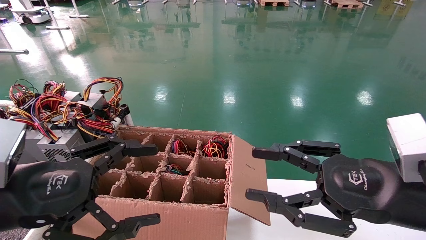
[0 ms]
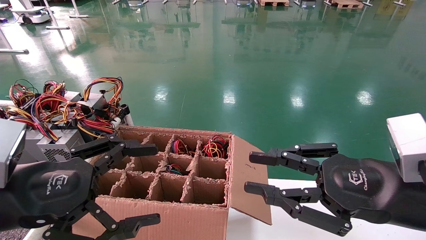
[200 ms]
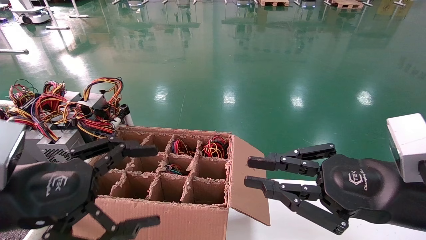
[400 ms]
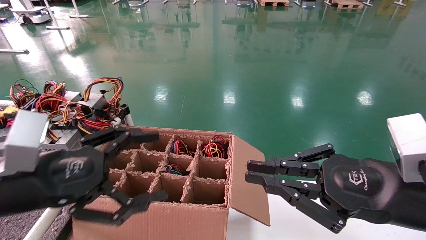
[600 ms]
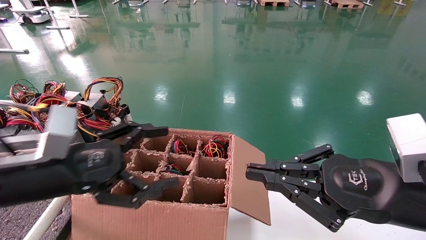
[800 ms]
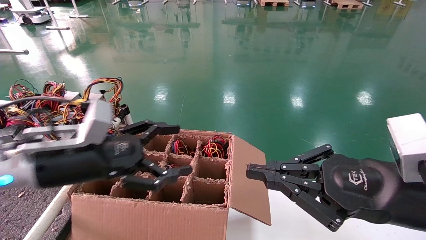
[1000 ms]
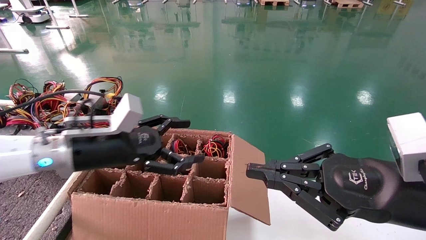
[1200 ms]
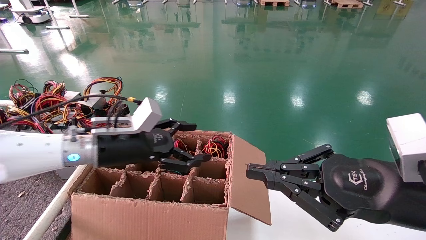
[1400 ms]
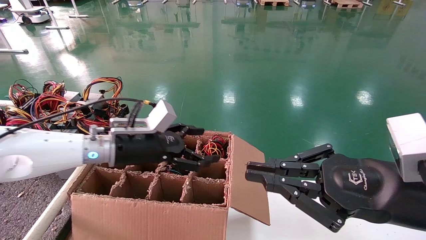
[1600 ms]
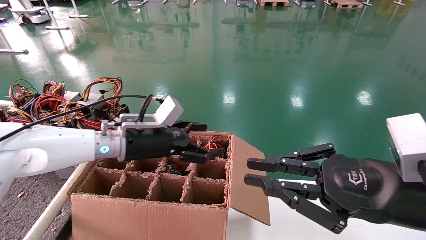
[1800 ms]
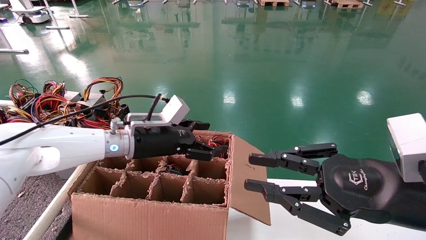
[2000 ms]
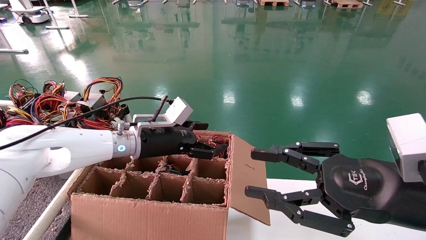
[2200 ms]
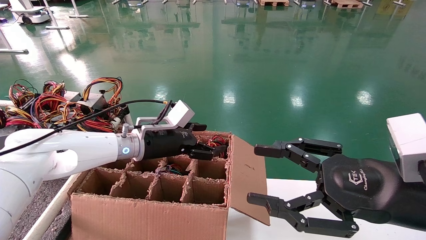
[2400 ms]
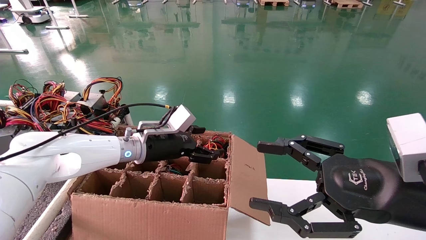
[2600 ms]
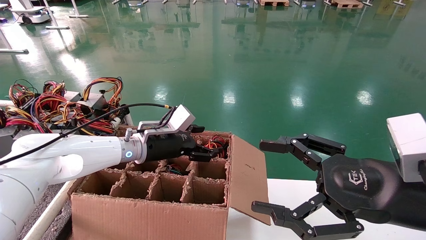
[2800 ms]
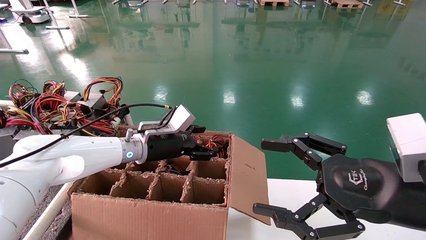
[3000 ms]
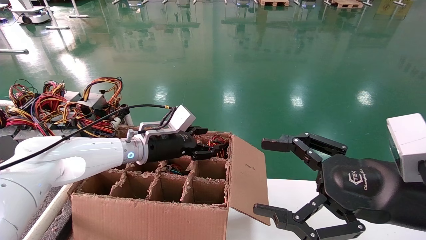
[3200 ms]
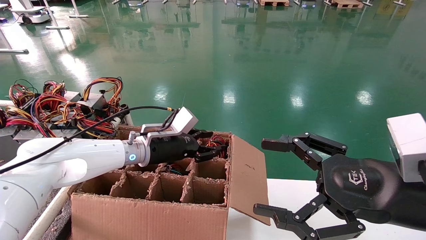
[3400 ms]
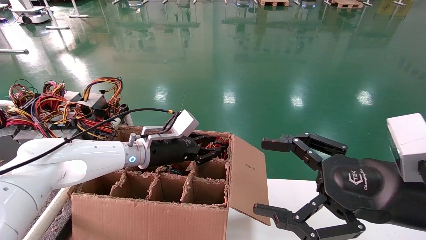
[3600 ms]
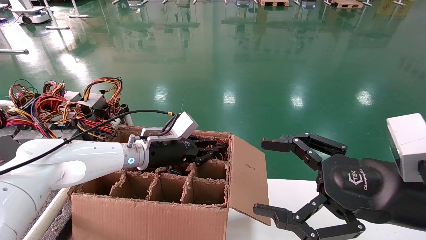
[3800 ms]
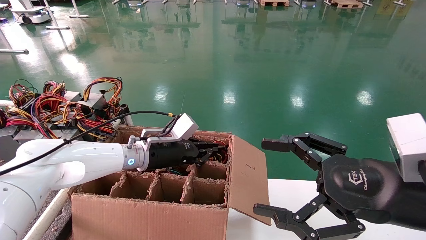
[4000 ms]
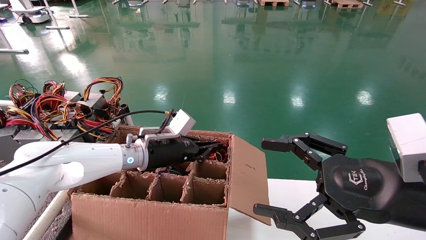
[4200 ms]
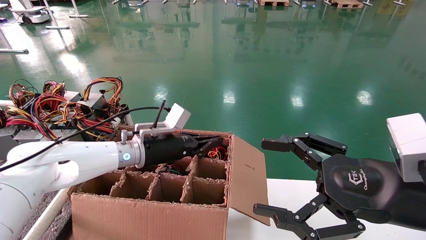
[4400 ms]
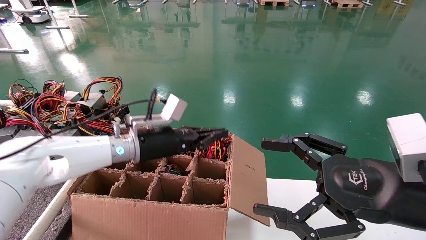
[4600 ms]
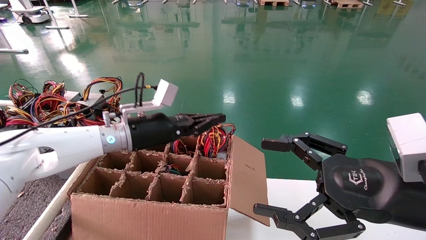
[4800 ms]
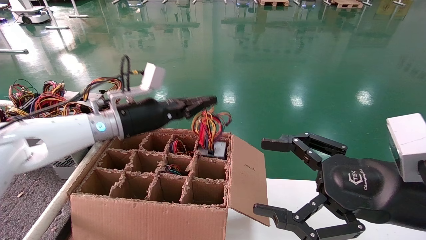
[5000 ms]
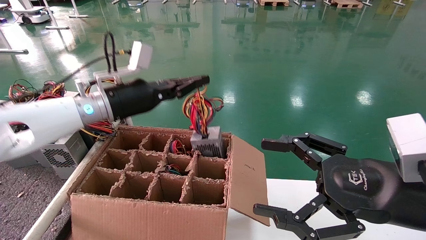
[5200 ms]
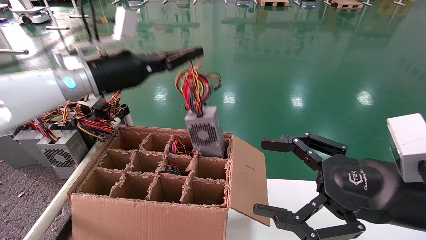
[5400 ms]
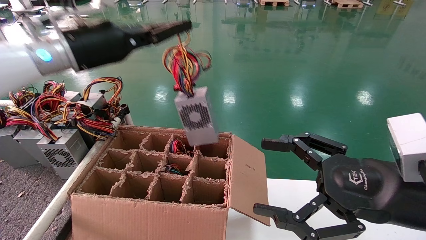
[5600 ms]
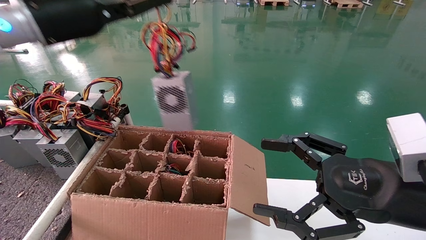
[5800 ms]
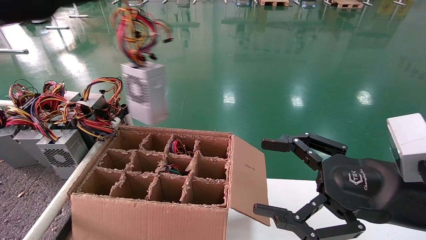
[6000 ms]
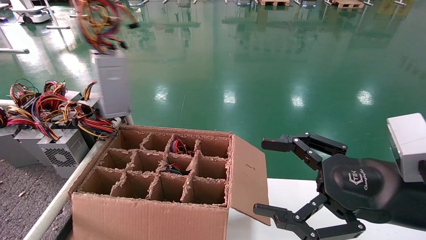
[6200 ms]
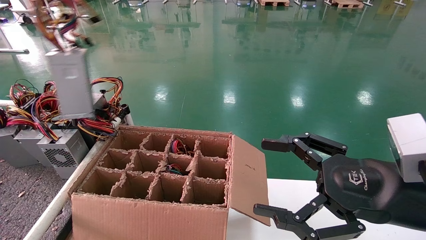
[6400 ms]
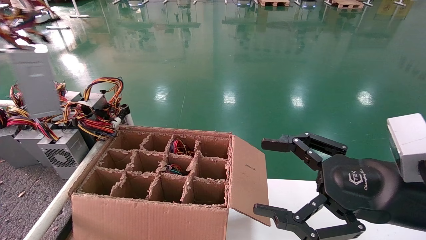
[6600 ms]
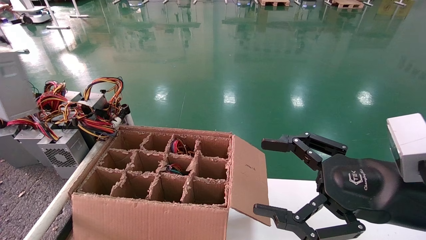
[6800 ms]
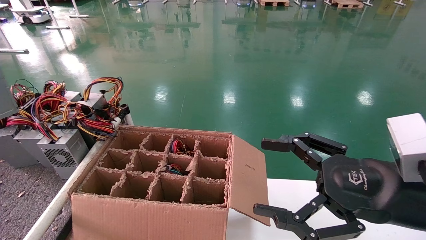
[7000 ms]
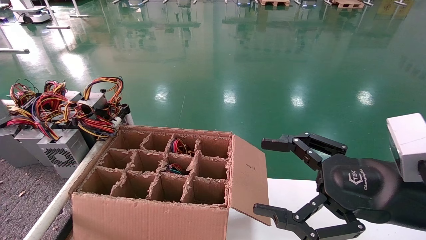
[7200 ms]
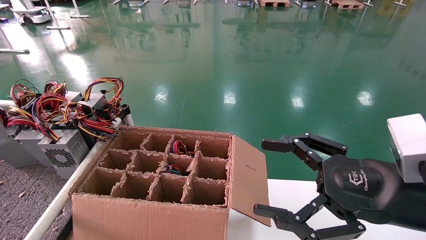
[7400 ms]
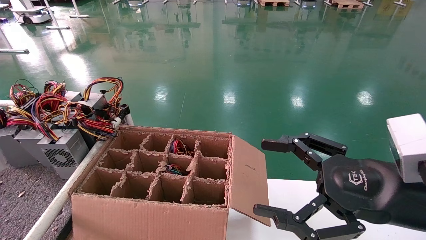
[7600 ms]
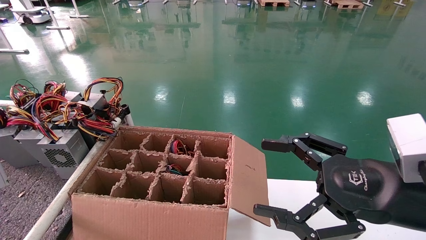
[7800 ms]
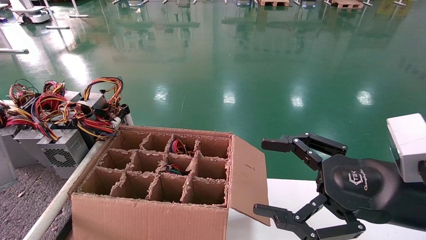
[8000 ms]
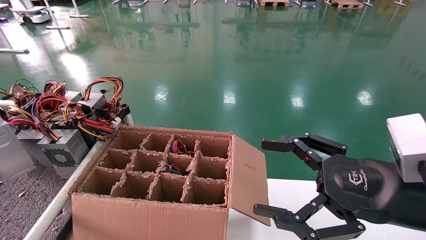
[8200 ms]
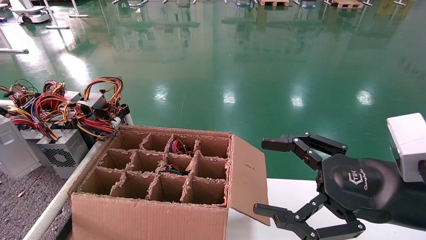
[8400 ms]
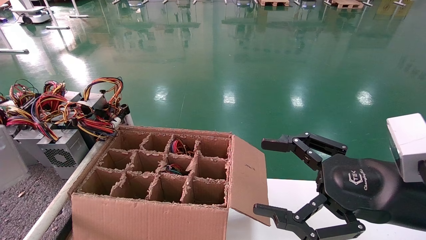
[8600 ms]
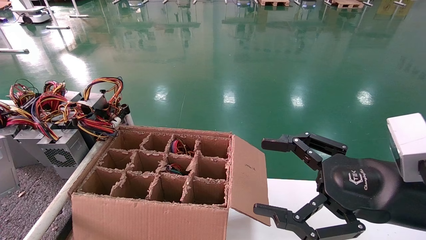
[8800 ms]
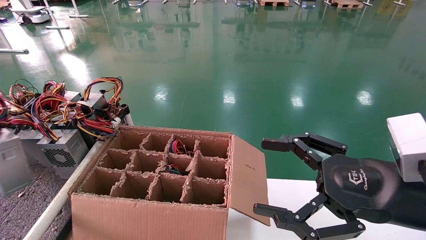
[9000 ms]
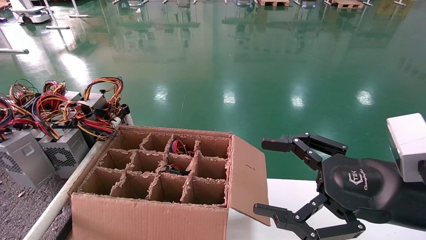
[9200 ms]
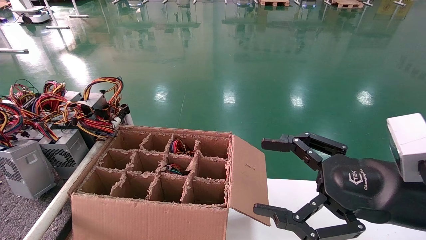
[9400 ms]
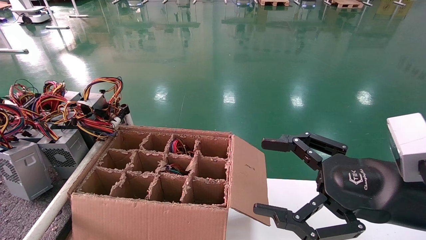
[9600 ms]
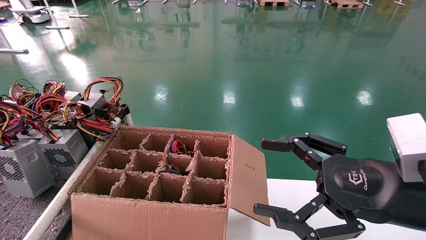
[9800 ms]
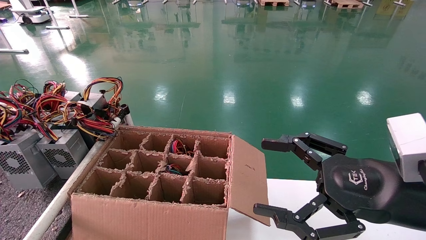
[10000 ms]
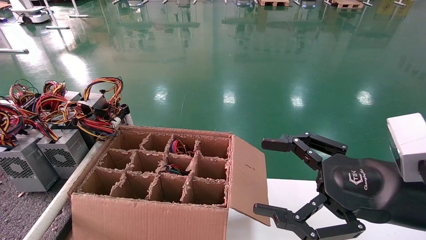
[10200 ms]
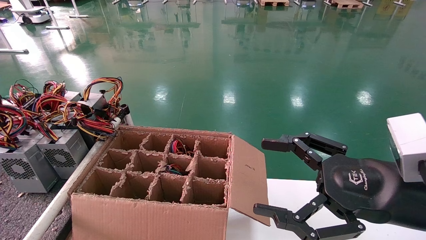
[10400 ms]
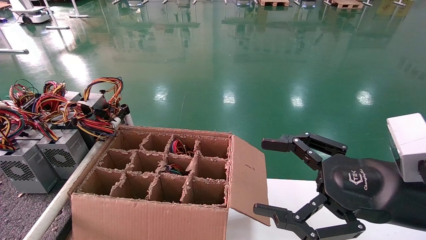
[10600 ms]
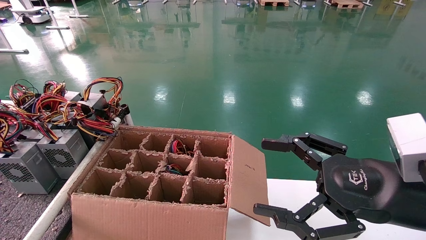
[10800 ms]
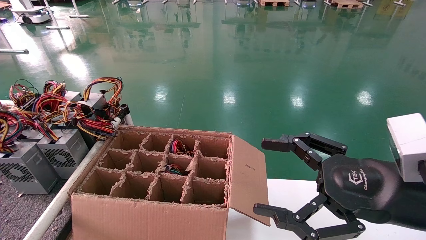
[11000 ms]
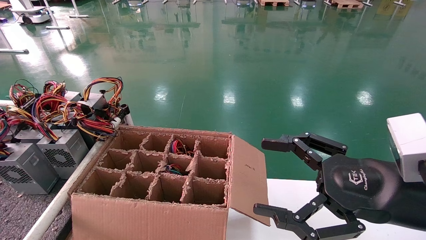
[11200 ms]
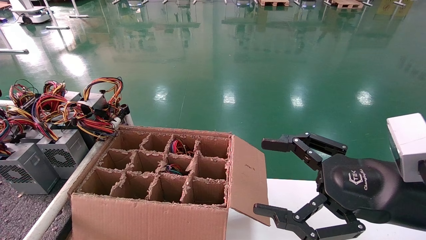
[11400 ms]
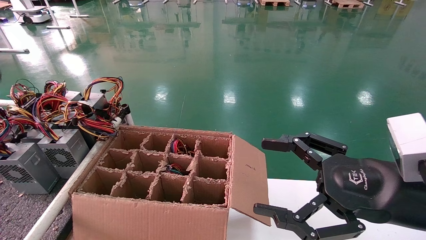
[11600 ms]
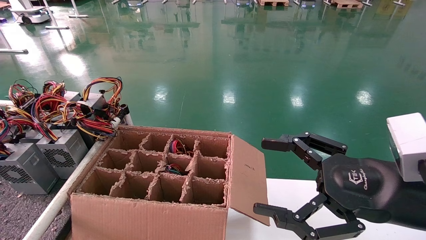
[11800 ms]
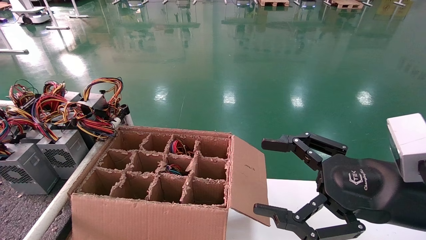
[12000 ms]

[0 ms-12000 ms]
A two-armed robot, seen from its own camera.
Step, 800 ms to 4400 ms: Grab and lift the power supply from the large box.
Step, 4600 ms to 11800 ms: Place the power supply on the operating table.
0 ms to 1600 ms: The left gripper is displaced forward and to the right by roughly 20 cm; the right gripper closes.
1600 ms to 3000 ms: The right gripper opens its fingers, while the left gripper shifts approximately 5 cm forward.
3000 ms to 4400 ms: The left gripper closes.
4400 ms to 6000 ms: The left gripper heads upward and to the left, covering some 35 cm.
6000 ms to 7600 ms: The left gripper goes approximately 30 cm to the left and backward.
7600 ms to 9000 ms: The left gripper heads downward, covering some 5 cm.
9000 ms to 10400 ms: The left gripper moves approximately 5 cm.
10400 ms to 12000 ms: The left gripper heads upward and to the right, covering approximately 10 cm, and opens its fingers.

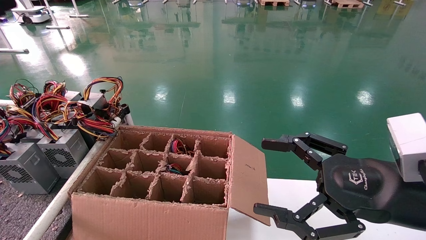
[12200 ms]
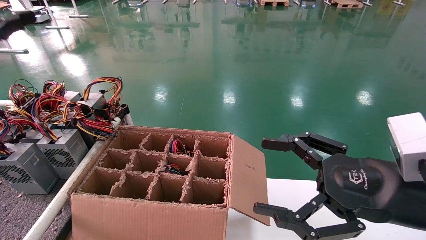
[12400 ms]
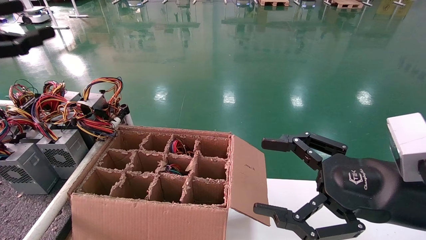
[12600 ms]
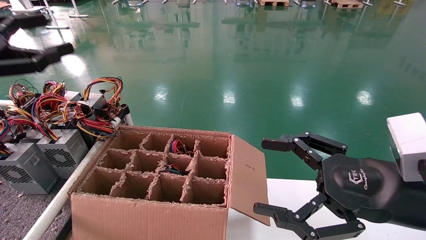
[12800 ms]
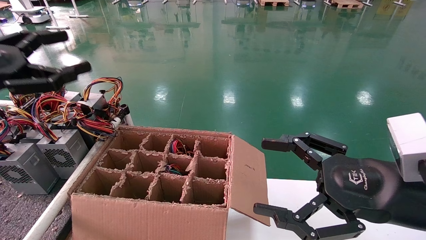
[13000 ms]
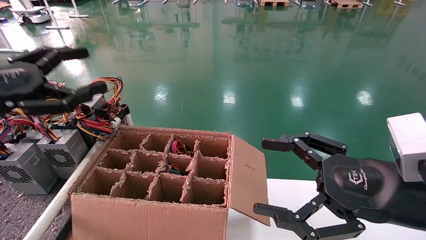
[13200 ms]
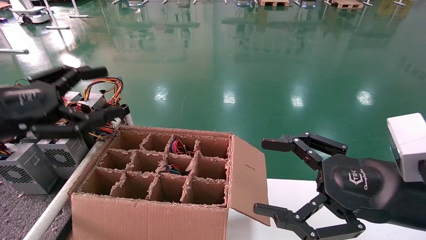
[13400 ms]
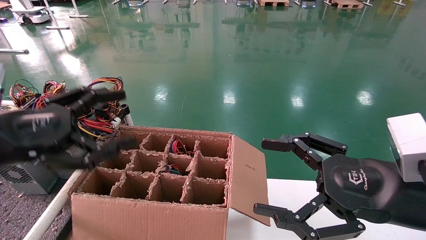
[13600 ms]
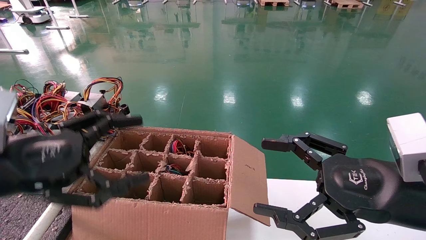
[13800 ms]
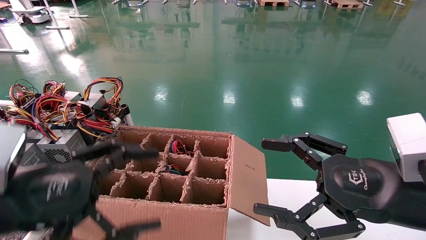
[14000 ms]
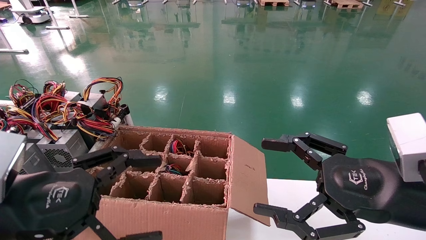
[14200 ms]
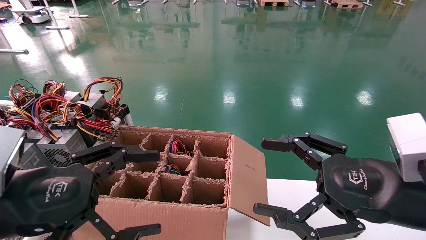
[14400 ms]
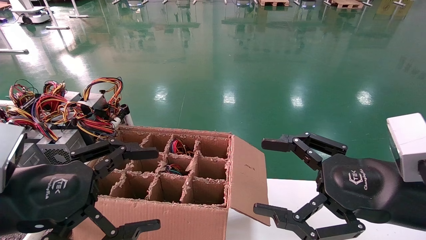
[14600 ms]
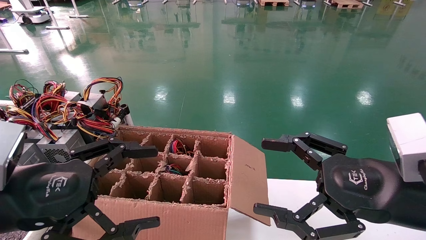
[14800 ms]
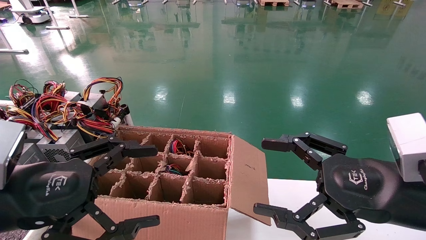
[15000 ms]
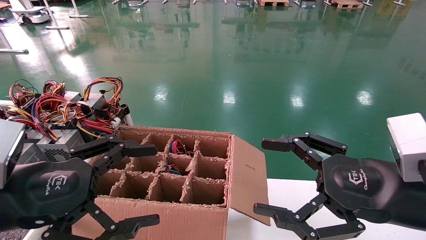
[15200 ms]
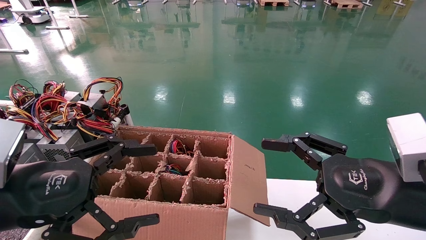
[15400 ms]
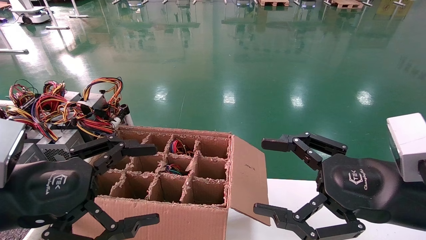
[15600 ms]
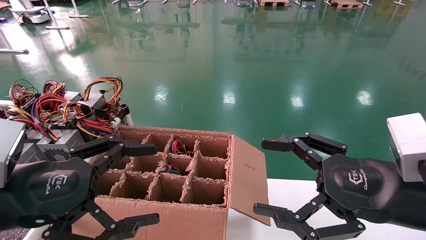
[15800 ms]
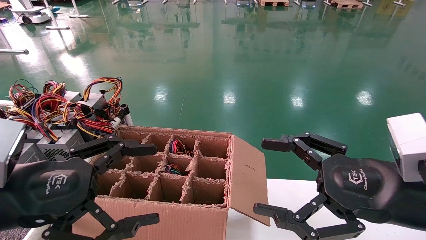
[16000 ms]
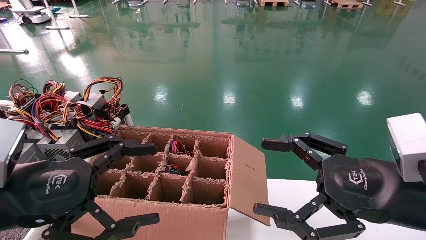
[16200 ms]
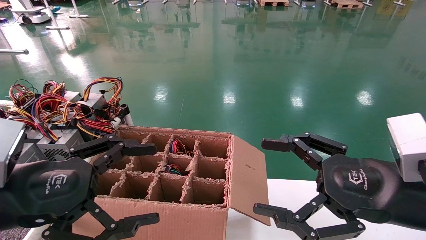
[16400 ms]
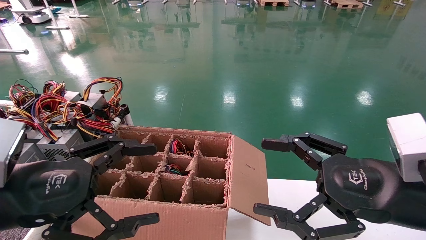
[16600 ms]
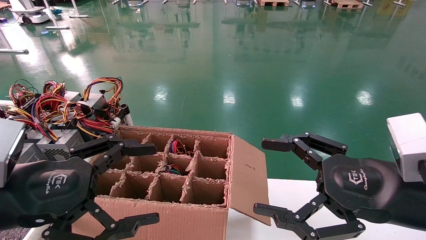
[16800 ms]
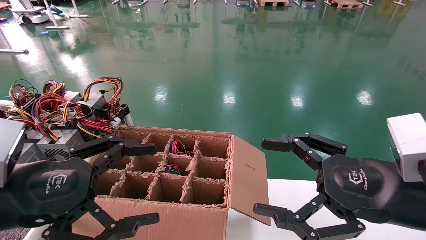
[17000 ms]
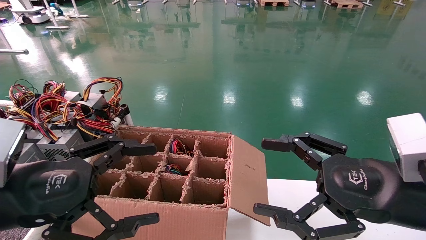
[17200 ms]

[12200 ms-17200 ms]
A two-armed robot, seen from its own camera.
12200 ms to 13800 ms: The left gripper heads to the right and downward, covering some 25 cm.
13800 ms to 15600 ms: There are only small adjustments of the grippers.
15600 ms to 17200 ms: Both grippers stay about where they are.
